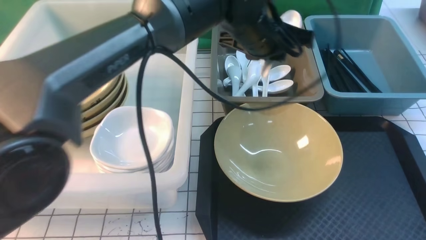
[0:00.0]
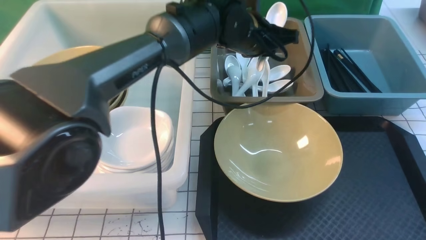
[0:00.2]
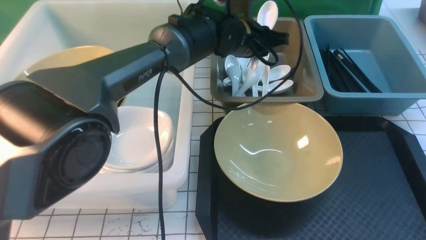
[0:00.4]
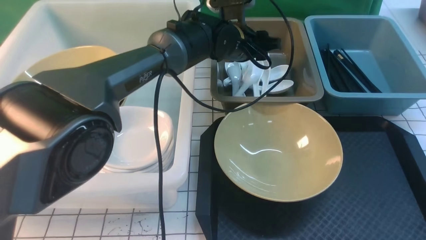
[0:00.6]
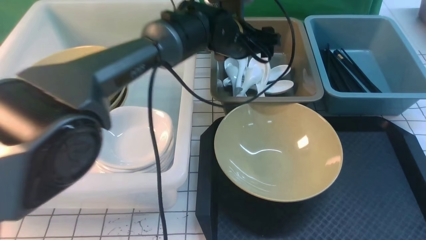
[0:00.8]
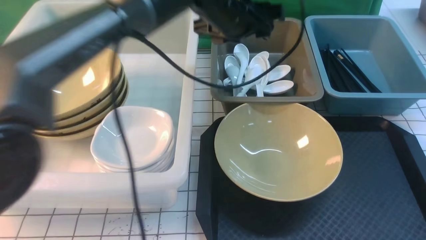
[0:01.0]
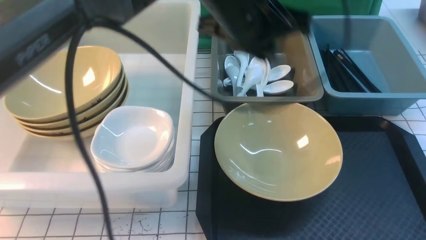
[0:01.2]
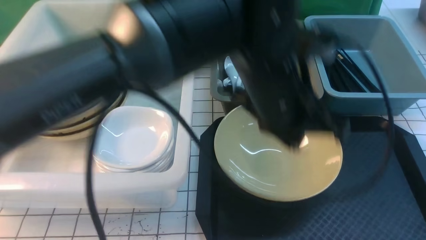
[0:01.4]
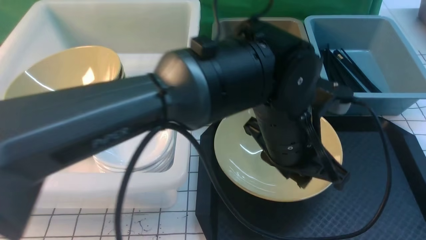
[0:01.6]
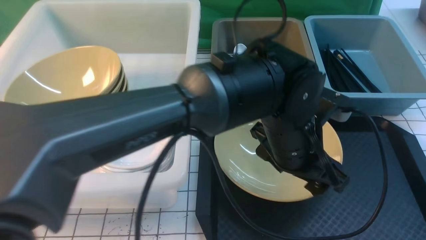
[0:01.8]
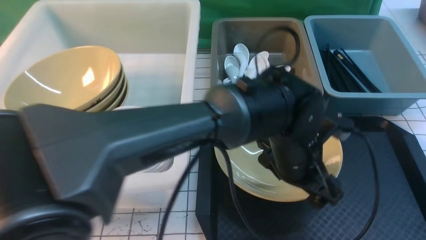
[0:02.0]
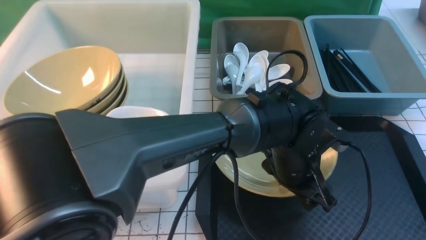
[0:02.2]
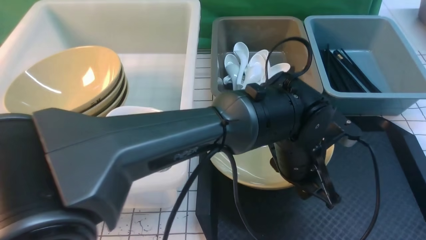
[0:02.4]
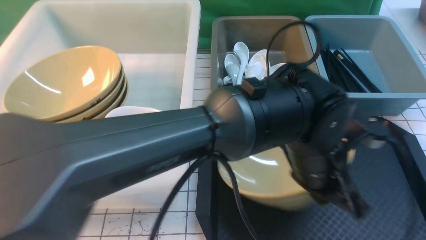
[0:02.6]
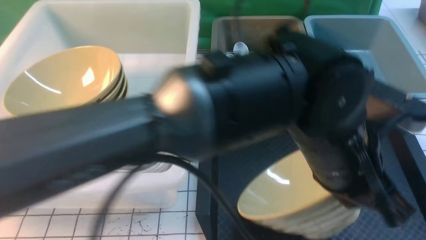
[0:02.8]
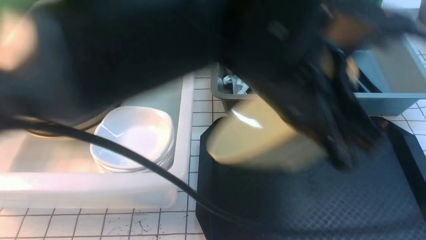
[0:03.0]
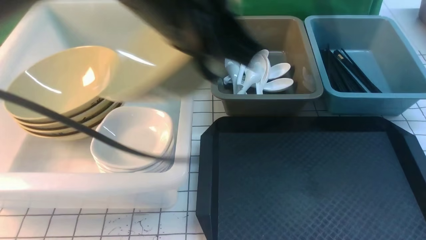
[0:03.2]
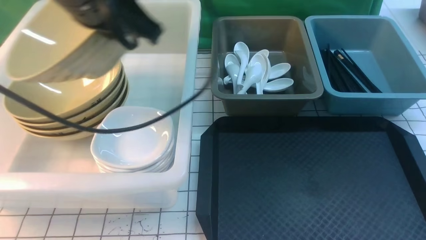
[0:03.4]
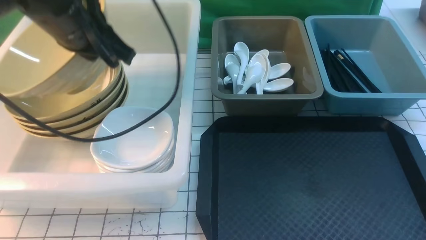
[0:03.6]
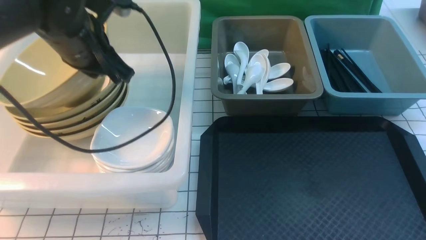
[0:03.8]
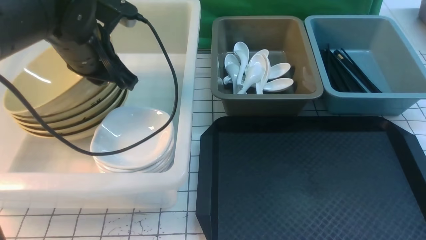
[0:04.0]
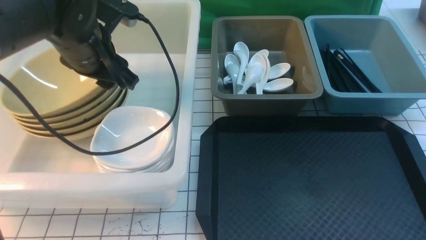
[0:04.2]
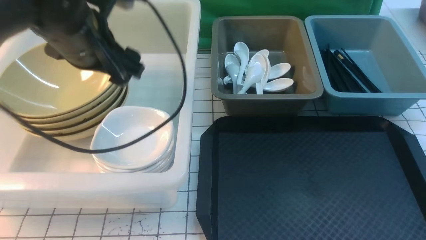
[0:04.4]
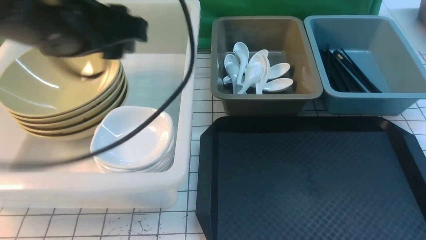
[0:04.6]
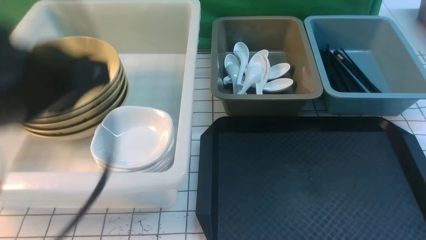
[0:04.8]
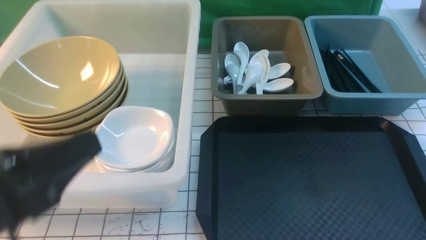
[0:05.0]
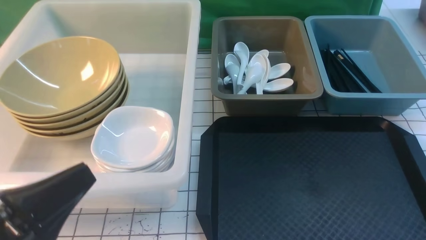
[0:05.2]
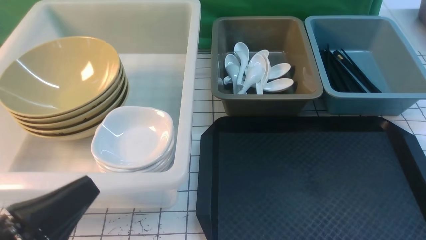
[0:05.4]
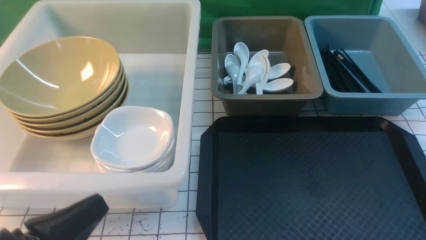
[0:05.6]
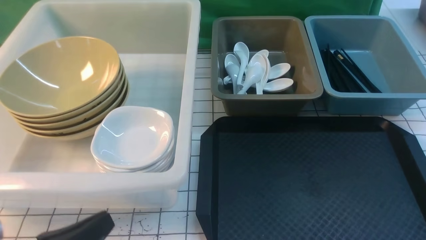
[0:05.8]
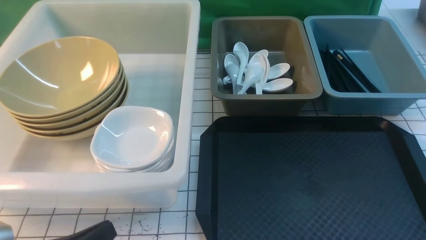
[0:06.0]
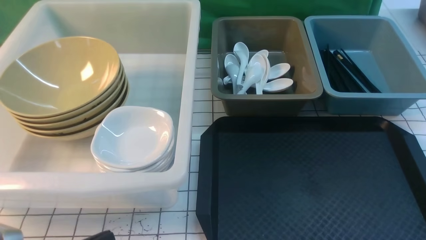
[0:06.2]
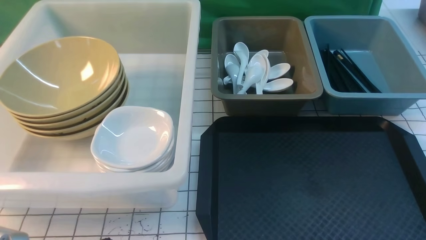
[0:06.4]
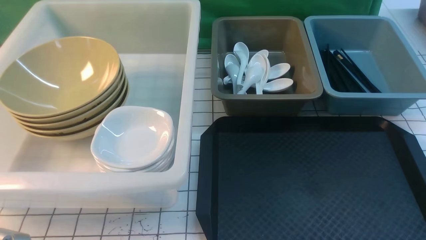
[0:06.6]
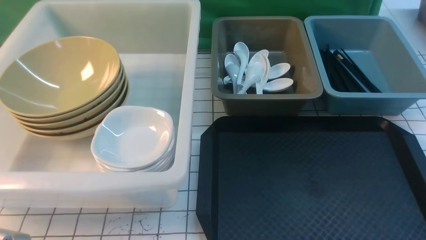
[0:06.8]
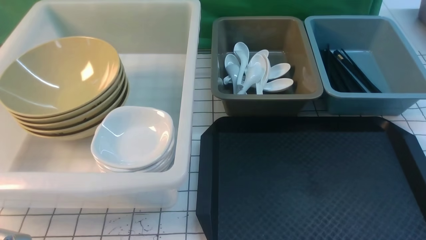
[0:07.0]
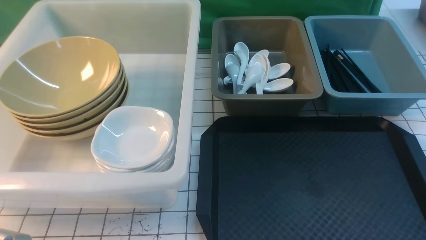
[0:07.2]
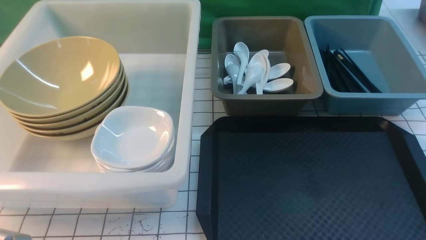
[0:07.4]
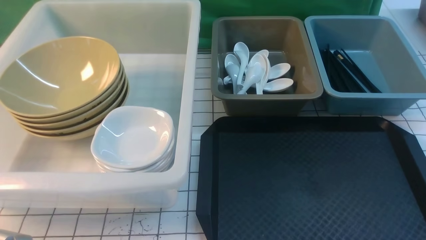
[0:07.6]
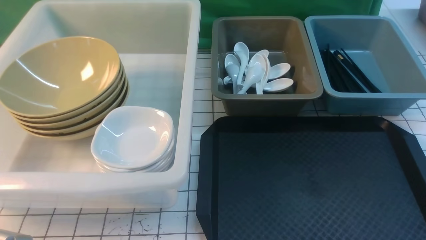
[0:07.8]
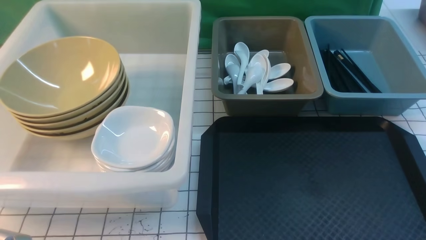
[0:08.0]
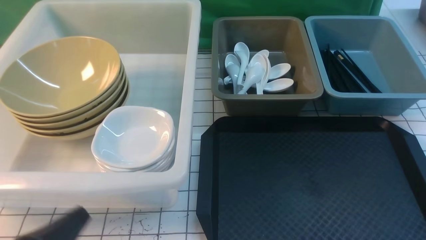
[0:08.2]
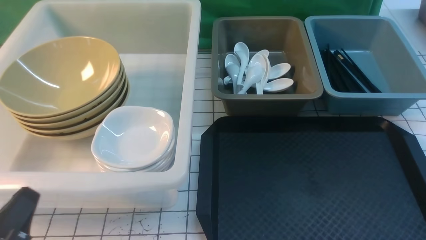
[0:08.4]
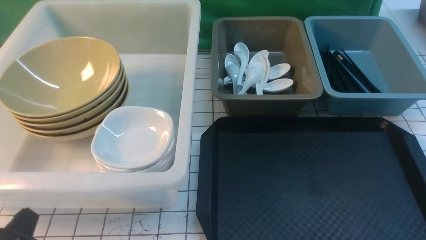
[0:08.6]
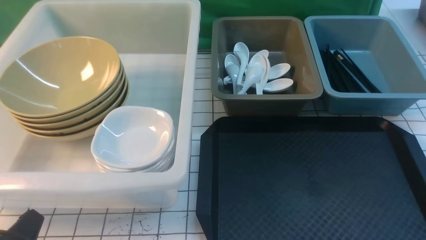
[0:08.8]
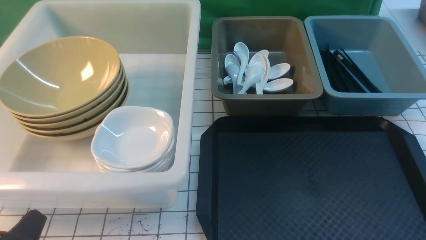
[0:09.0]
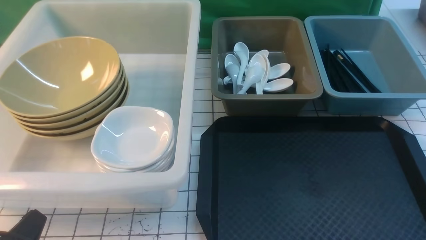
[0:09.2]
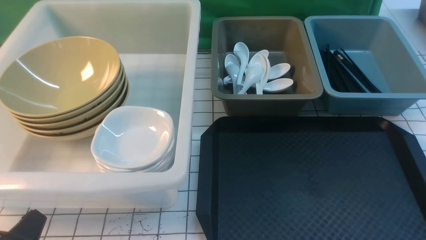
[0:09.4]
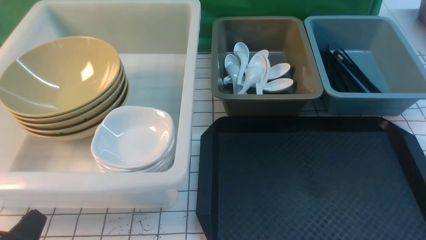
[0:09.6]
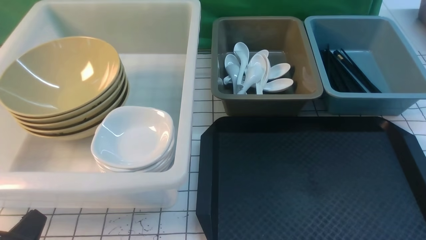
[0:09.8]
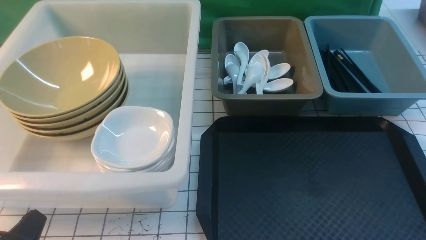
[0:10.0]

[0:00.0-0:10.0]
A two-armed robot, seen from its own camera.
Task of the whole recording: on white black table put chopsticks spoon bowls plates into blue grey white boxes.
Step, 0:00.0 to 0:00.8: use the left arm to put the soup spoon into the small storage box in the middle.
Step, 0:01.0 to 0:02.8: use the left arm to grab the yellow noodle bowl on the left.
Step, 0:03.0 to 0:04.4: use the left arm to put the noodle bowl into the large storage box on the left.
0:00.0 to 0:01.4: The left gripper goes approximately 10 cm backward, and opens, then closes once more.
0:01.4 to 0:02.8: The left gripper is displaced backward by about 5 cm, goes downward and returns, some 10 cm each way, and opens, then closes again.
0:02.8 to 0:04.2: The left gripper travels to the left and forward by some 30 cm, and opens its fingers.
0:04.2 to 0:05.8: The right gripper goes some 5 cm downward. Meanwhile the left gripper goes about 30 cm backward and downward, and closes its fingers.
0:08.6 to 0:10.0: Both grippers stay put.

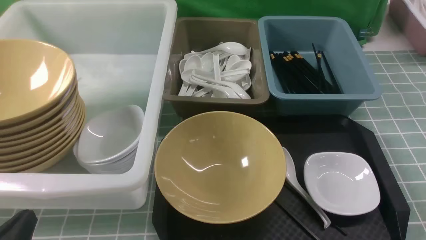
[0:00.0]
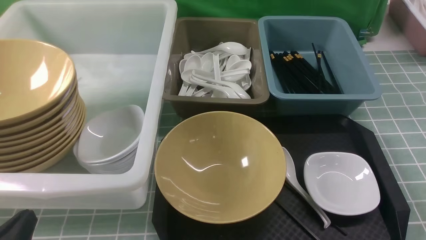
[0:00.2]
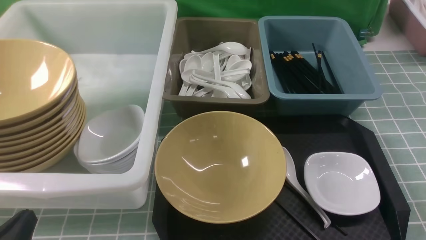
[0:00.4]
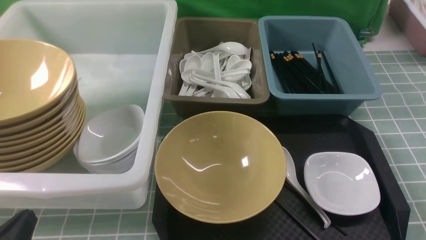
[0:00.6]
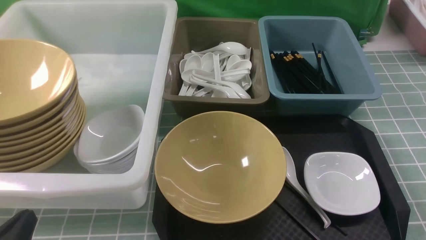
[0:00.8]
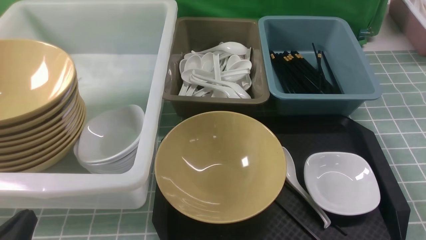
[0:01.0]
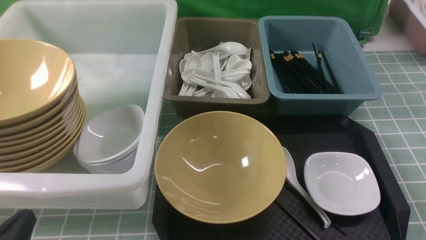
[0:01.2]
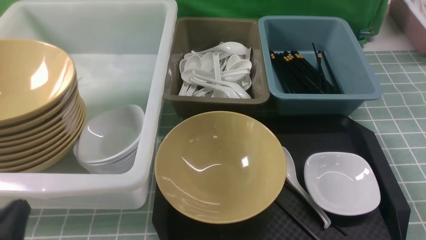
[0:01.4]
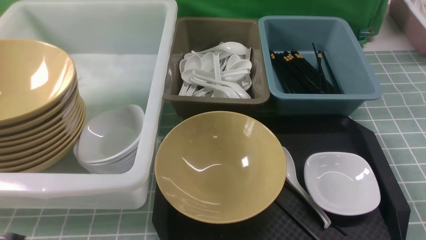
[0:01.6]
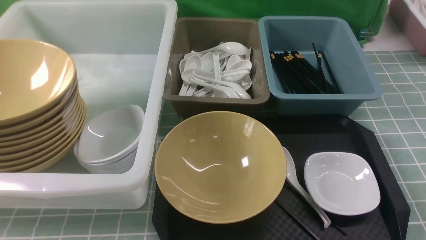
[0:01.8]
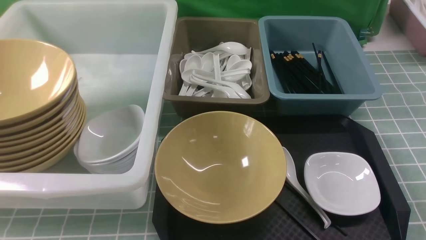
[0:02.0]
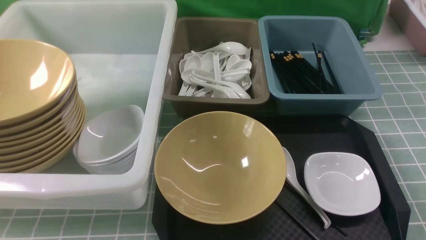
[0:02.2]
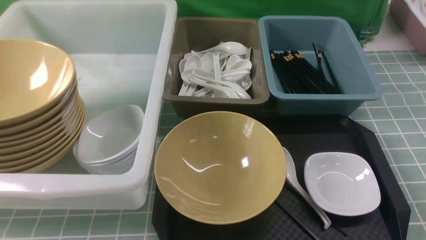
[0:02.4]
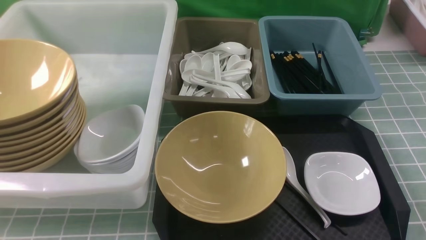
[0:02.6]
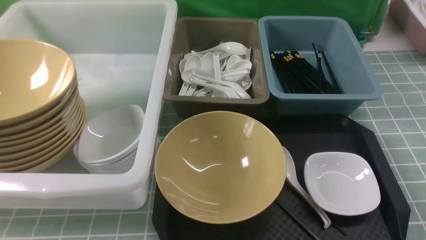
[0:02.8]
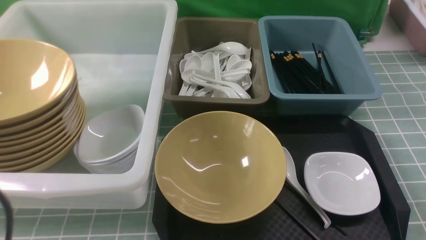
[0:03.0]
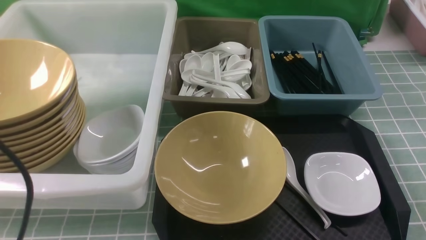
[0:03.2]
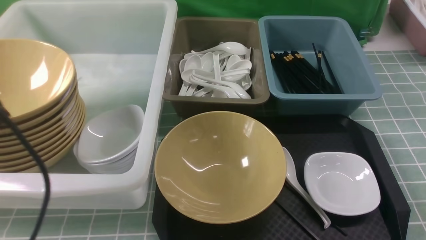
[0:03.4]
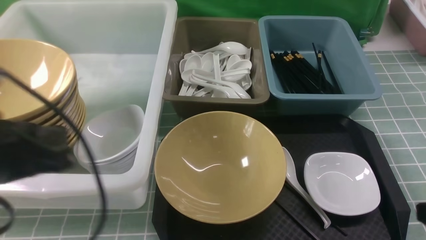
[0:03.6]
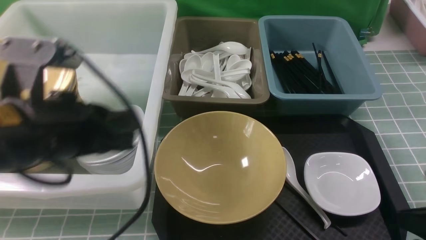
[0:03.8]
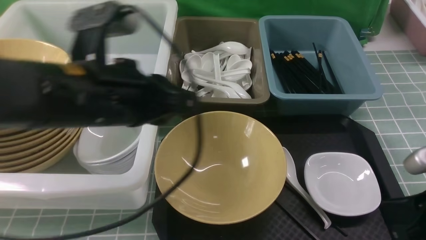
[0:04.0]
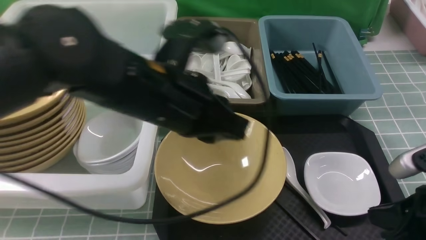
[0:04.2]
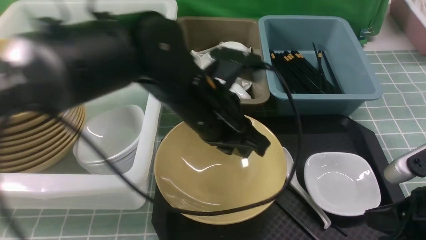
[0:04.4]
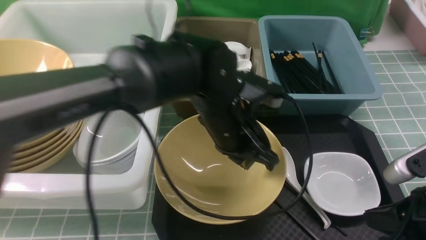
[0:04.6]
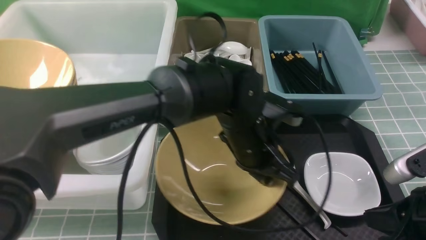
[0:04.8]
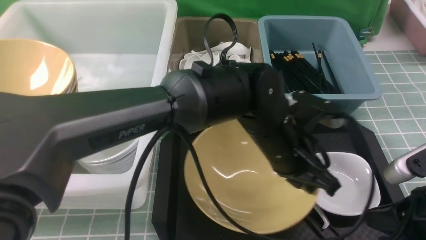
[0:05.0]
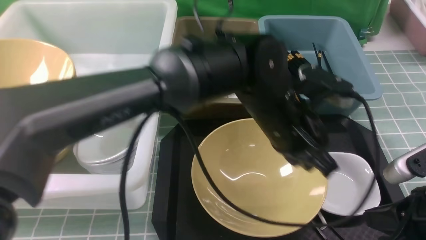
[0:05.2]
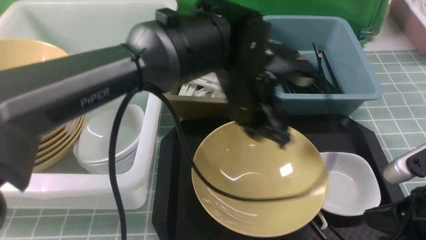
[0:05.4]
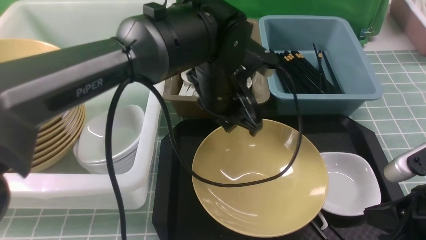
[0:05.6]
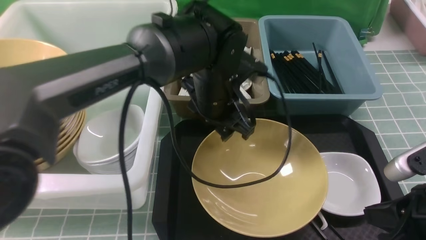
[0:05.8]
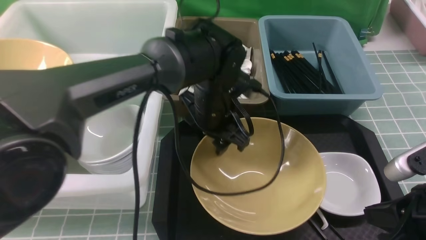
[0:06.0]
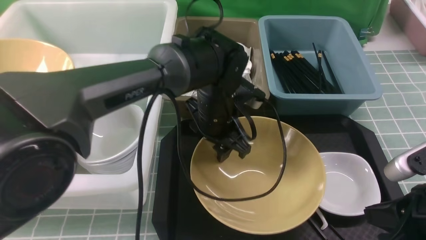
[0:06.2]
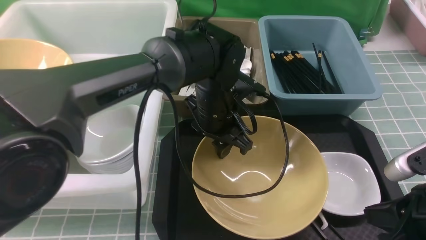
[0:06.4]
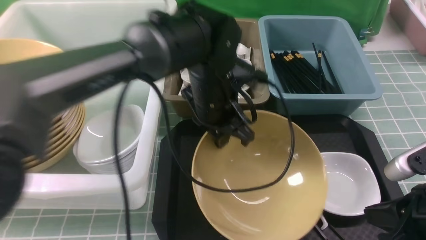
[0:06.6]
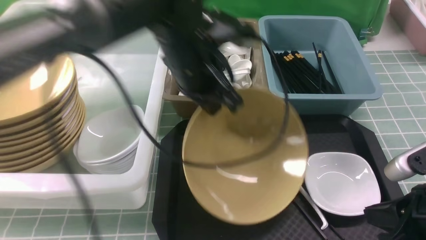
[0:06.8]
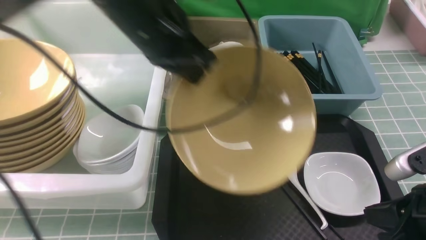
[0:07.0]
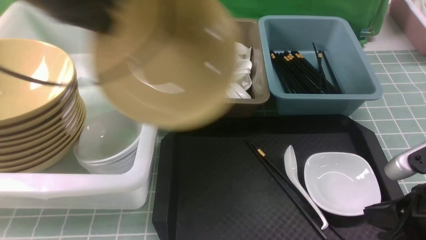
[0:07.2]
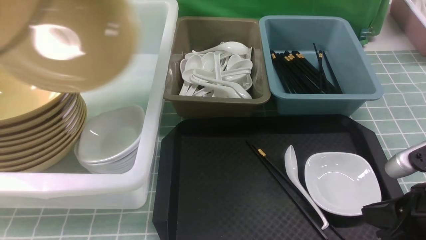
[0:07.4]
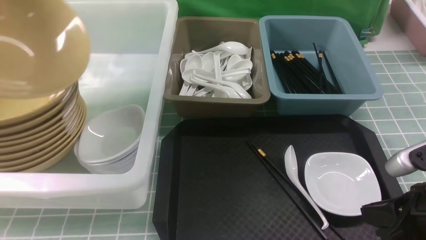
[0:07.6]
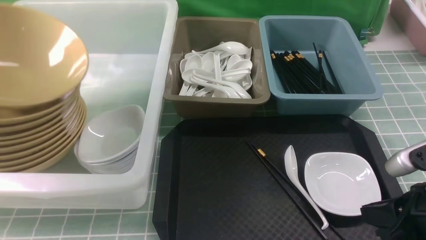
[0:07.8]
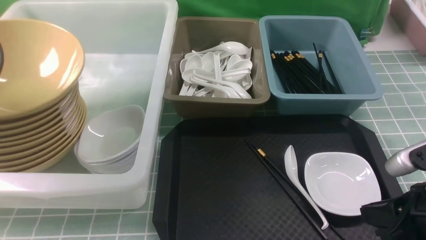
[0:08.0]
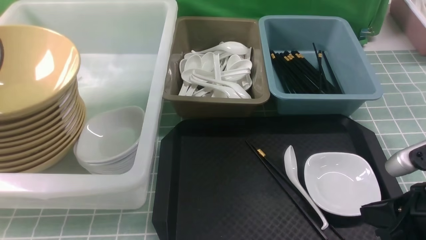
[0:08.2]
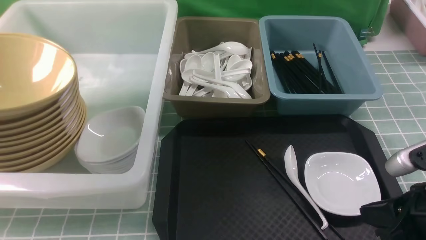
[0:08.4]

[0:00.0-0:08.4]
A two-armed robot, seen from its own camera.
Task of the whole recording: on blue table put chopsticks spoon bowls plates into blue grey white boxes.
Step, 0:00.0 to 0:06.8: use the left arm to grab the yellow noodle bowl on the left.
0:01.4 to 0:02.8: The left gripper moves upward, some 20 cm.
0:02.8 to 0:04.2: The left gripper heads forward and to the right, covering approximately 25 cm, while the right gripper travels downward and forward by approximately 15 cm, and closes.
0:04.2 to 0:05.6: The left gripper goes some 15 cm to the right, forward and downward.
0:05.6 to 0:07.0: The left gripper shifts some 15 cm to the left and upward, and opens, then closes again.
0:07.0 to 0:08.4: The left gripper is displaced to the left by about 30 cm, and opens its fingers.
